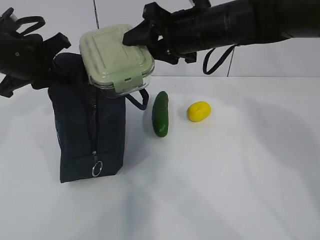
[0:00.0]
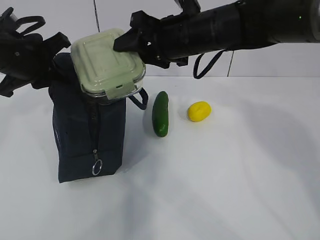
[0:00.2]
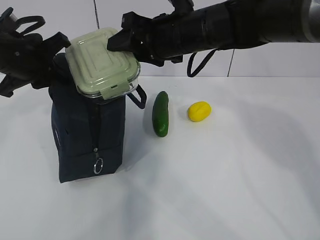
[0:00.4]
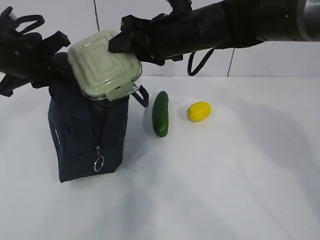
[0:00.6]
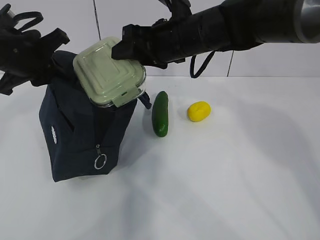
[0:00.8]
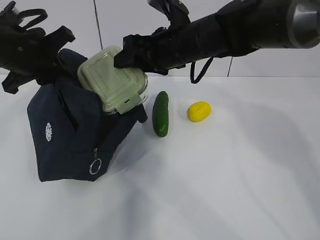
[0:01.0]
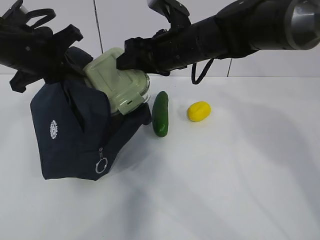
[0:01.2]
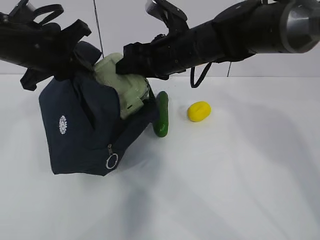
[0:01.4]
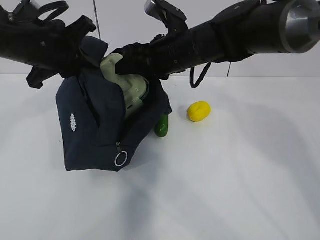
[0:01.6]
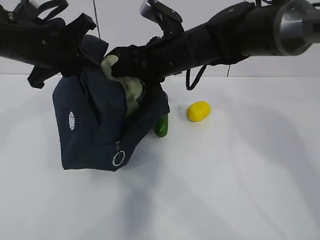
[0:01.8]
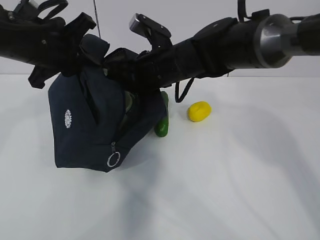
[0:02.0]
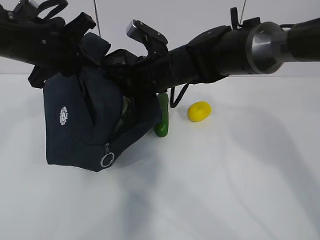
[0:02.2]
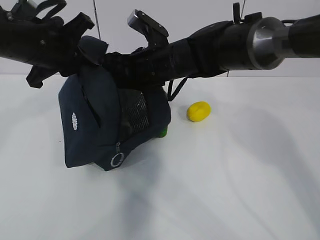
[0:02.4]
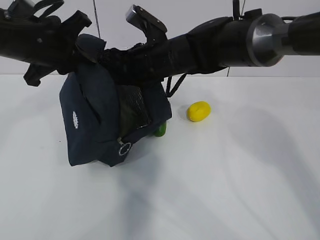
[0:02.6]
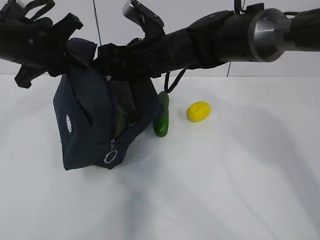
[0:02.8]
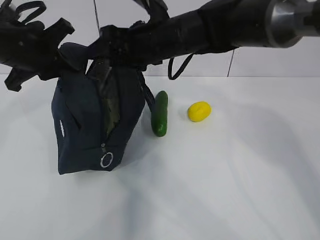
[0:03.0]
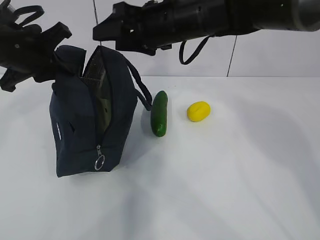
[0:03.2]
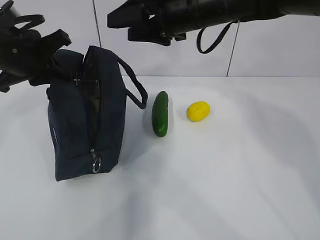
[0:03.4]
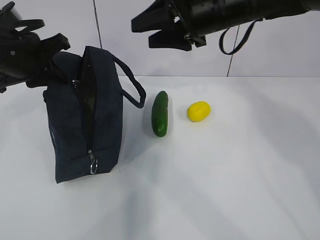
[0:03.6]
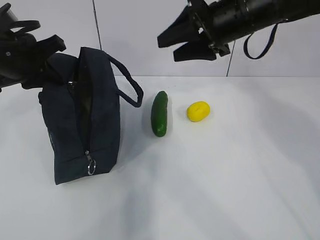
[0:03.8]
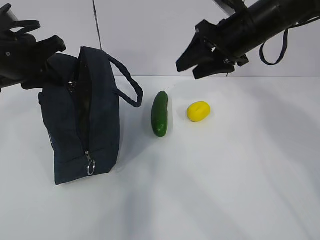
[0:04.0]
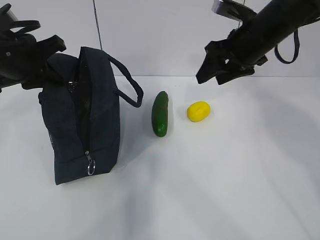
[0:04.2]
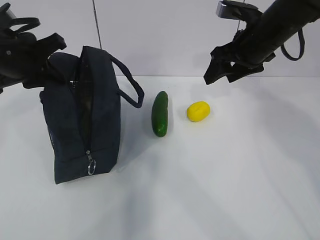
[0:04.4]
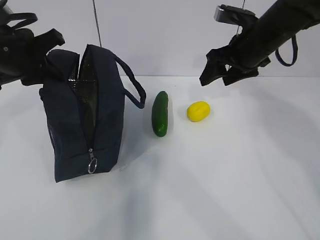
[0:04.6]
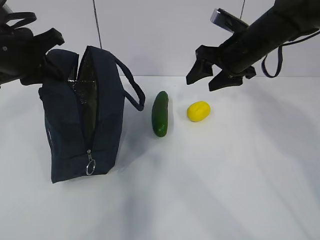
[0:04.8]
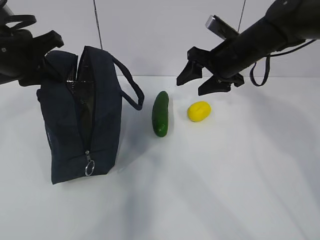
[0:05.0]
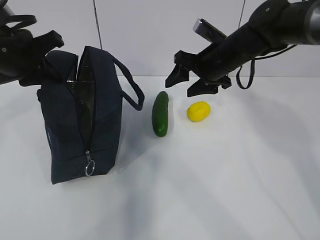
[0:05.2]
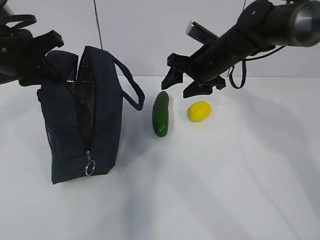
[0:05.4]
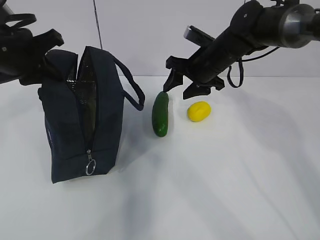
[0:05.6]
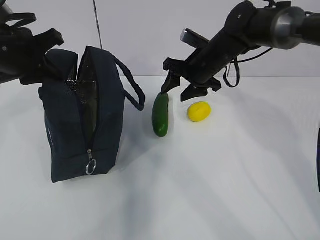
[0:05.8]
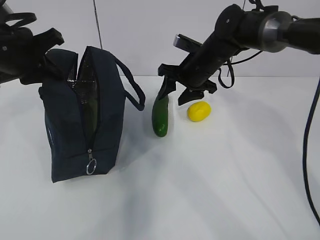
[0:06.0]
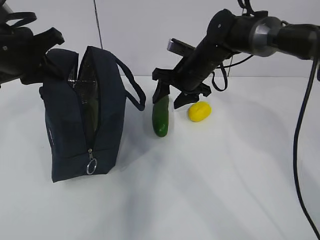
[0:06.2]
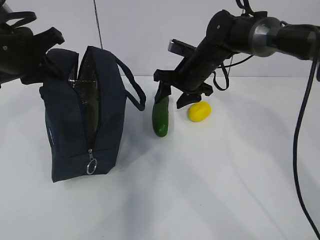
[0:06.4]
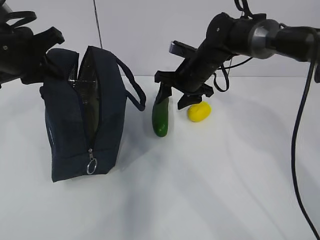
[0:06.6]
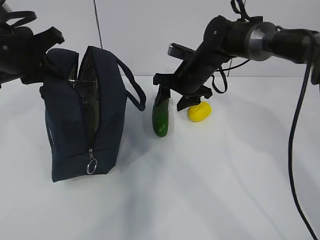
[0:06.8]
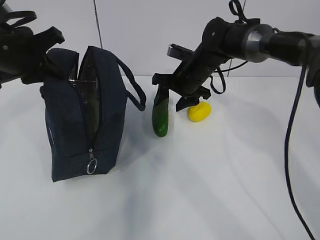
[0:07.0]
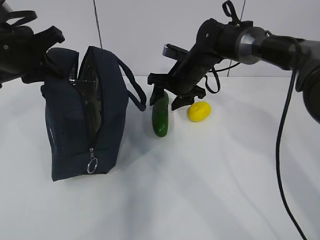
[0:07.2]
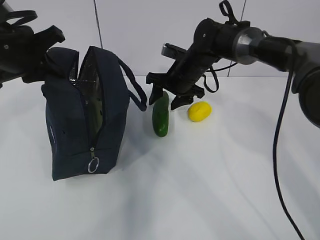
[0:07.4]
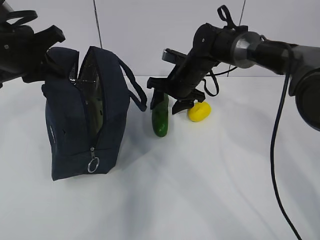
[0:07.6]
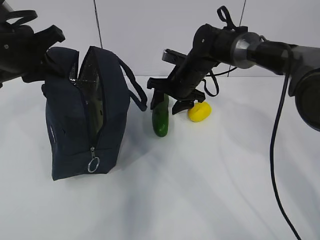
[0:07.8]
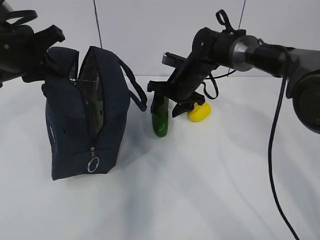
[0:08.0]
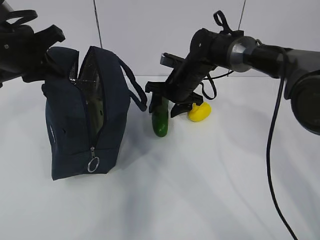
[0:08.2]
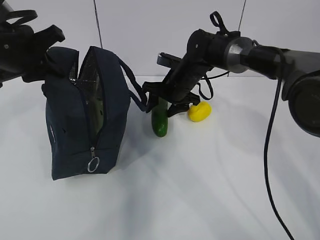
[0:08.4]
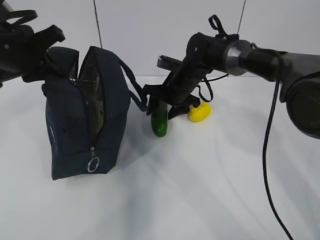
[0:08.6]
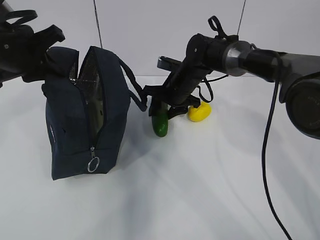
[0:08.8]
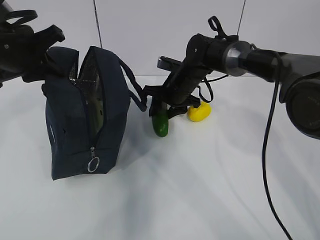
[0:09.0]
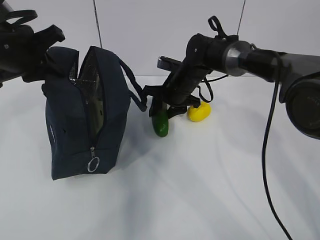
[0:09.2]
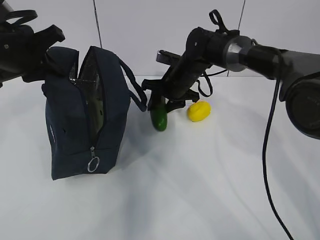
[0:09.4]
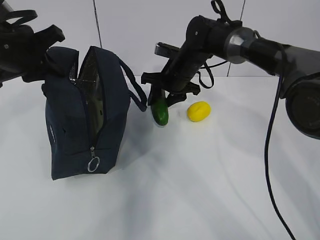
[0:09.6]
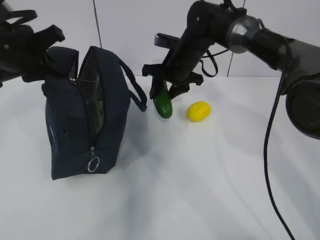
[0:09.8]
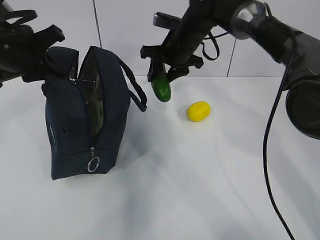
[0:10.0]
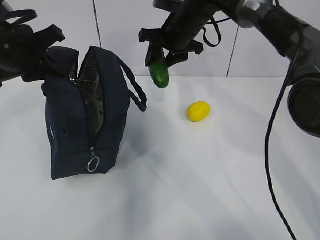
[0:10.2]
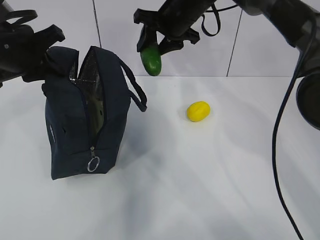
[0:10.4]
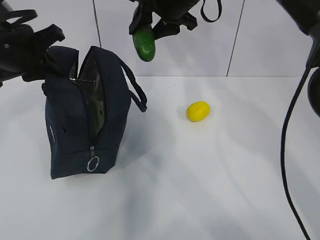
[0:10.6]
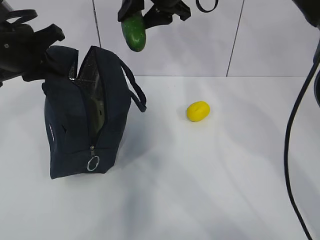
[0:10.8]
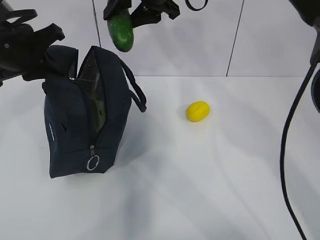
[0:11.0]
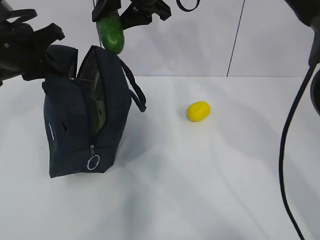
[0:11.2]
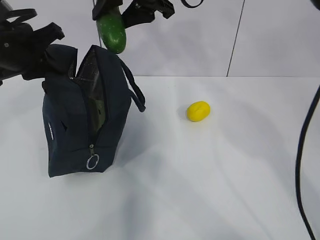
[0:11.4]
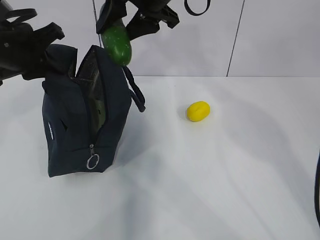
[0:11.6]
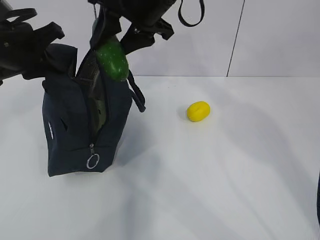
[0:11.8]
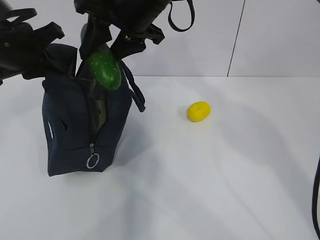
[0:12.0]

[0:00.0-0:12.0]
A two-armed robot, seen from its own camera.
Step, 0:00.0 to 0:02.8: Place the box into the package with the right gripper.
Step, 0:03.0 to 0:09.0: Grasp the cucumber with the right gripper.
0:00.0 to 0:01.6: The right gripper shifts by about 5 cm. Meanwhile the left gripper changes place by approximately 5 cm.
0:01.6 to 0:03.0: The grippers stay close to where they were, moving slightly.
0:03.0 to 0:04.4: The right gripper heads to the right, covering roughly 15 cm.
0:04.4 to 0:06.0: The right gripper is displaced downward, to the left and forward by some 15 cm.
0:06.0 to 0:07.6: The grippers stay close to where they were, moving slightly.
0:07.6 to 0:09.0: The grippers stay close to where they were, moving slightly.
0:09.0 to 0:10.4: The right gripper goes roughly 15 cm upward.
0:10.4 to 0:12.0: The right gripper travels backward, to the left and upward by some 15 cm.

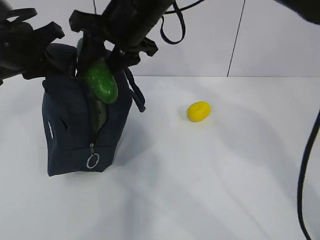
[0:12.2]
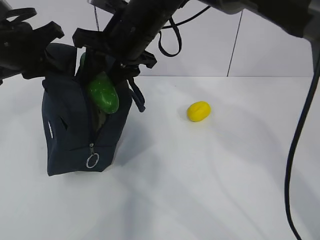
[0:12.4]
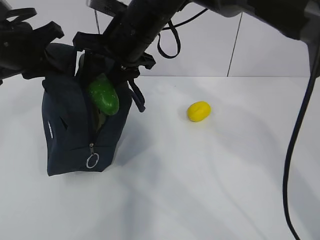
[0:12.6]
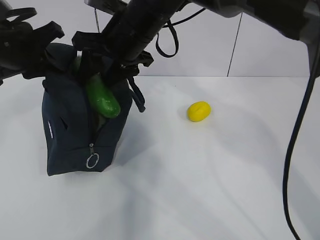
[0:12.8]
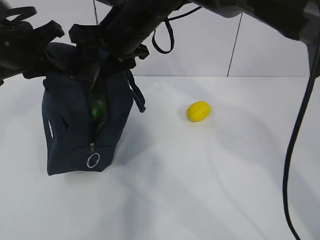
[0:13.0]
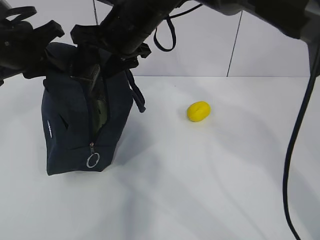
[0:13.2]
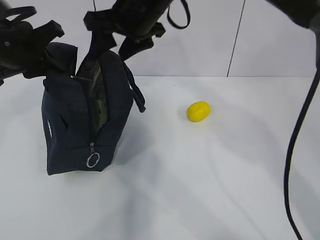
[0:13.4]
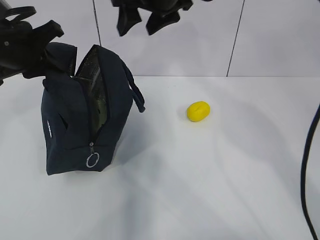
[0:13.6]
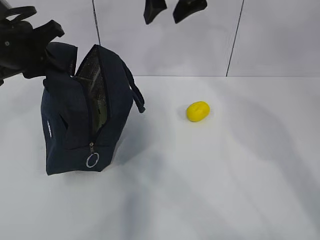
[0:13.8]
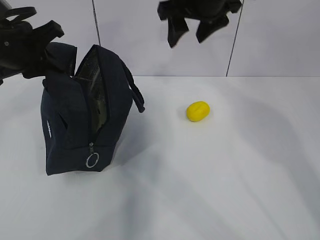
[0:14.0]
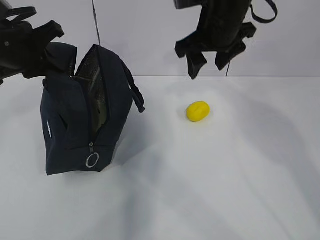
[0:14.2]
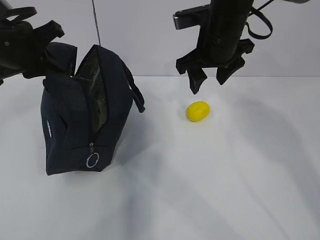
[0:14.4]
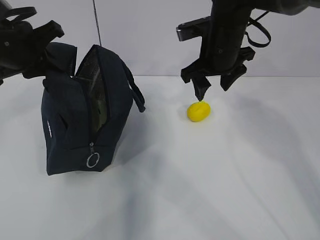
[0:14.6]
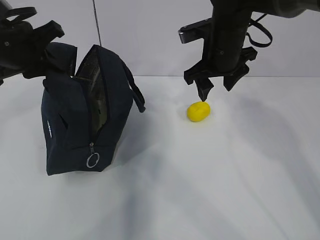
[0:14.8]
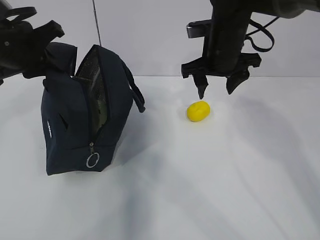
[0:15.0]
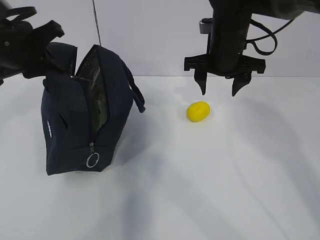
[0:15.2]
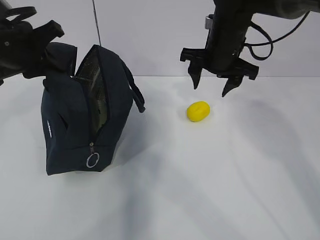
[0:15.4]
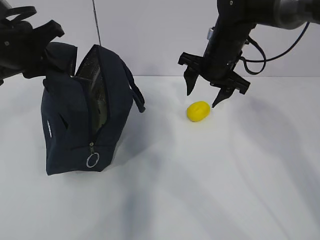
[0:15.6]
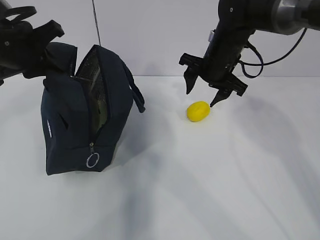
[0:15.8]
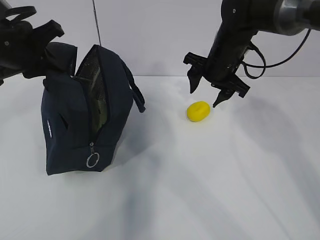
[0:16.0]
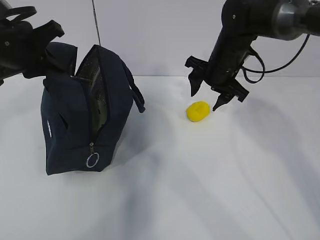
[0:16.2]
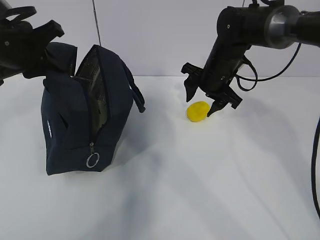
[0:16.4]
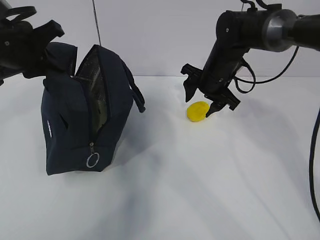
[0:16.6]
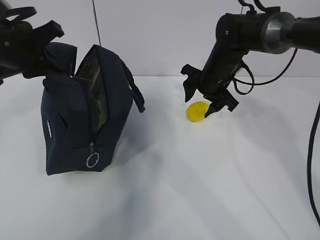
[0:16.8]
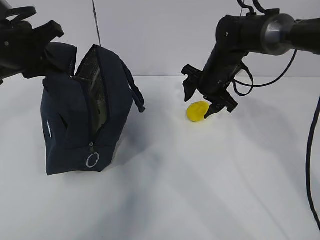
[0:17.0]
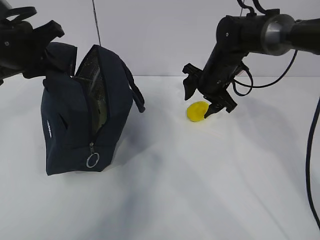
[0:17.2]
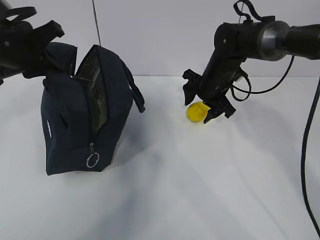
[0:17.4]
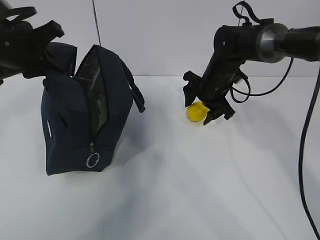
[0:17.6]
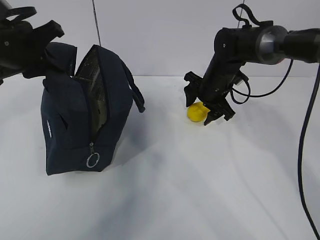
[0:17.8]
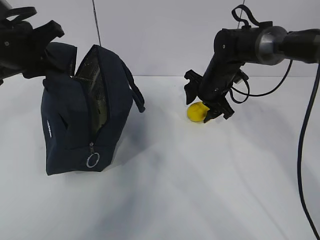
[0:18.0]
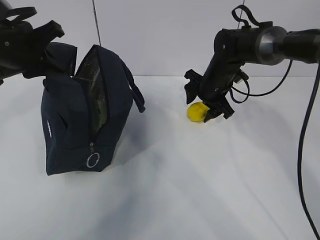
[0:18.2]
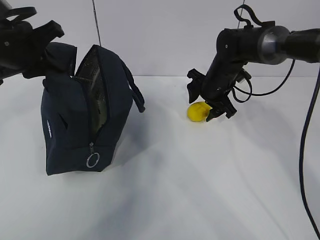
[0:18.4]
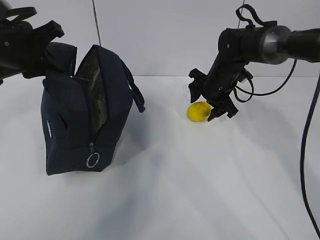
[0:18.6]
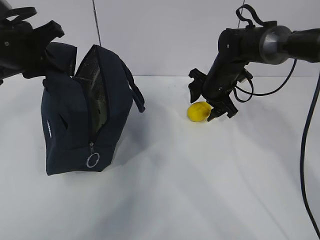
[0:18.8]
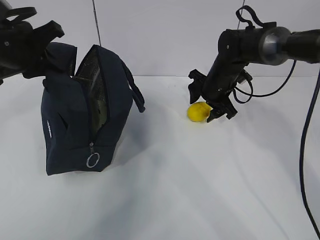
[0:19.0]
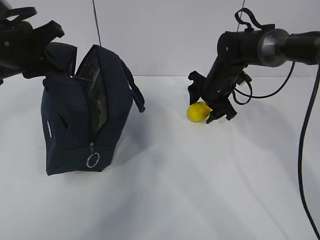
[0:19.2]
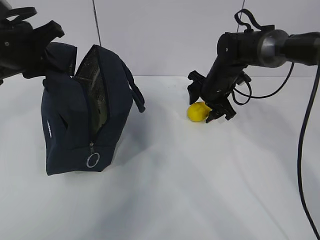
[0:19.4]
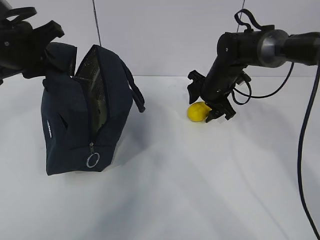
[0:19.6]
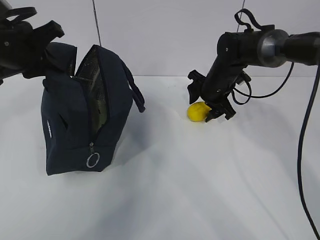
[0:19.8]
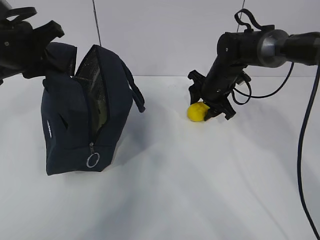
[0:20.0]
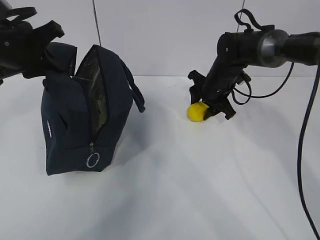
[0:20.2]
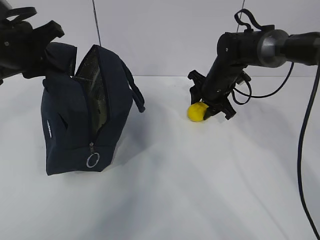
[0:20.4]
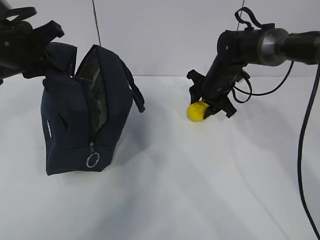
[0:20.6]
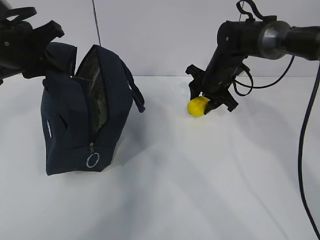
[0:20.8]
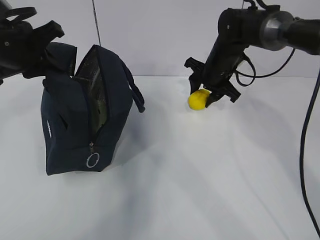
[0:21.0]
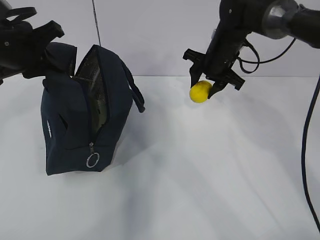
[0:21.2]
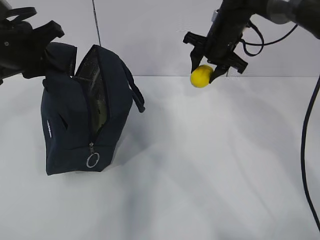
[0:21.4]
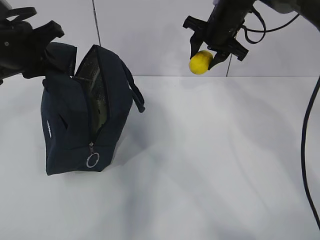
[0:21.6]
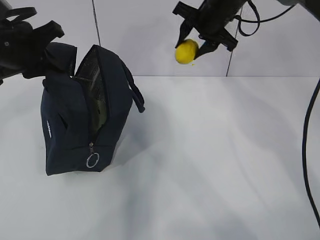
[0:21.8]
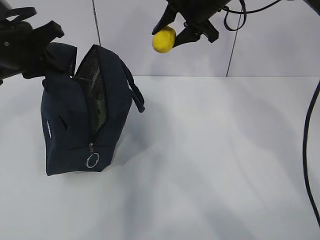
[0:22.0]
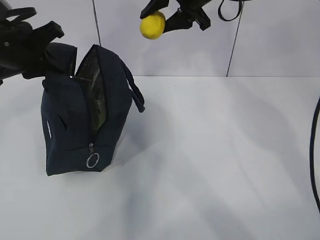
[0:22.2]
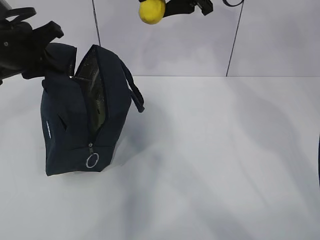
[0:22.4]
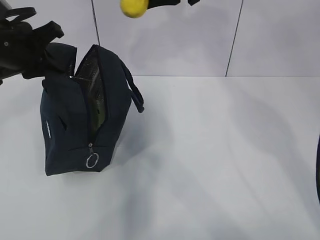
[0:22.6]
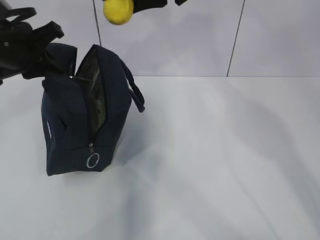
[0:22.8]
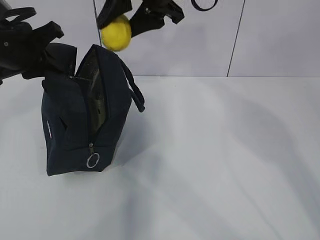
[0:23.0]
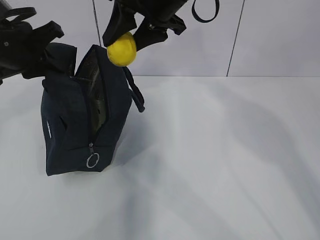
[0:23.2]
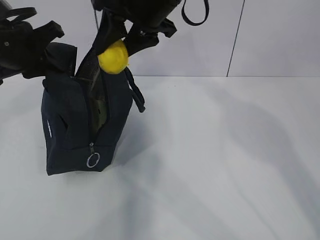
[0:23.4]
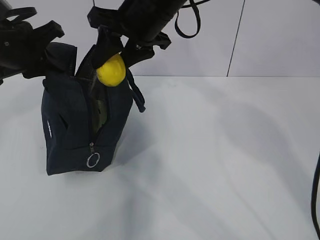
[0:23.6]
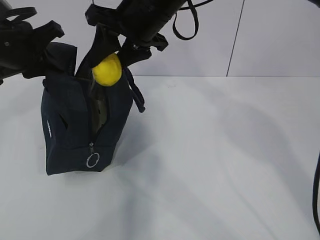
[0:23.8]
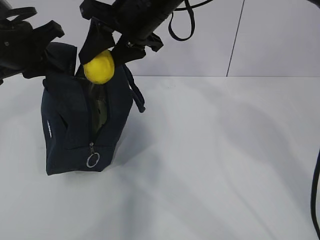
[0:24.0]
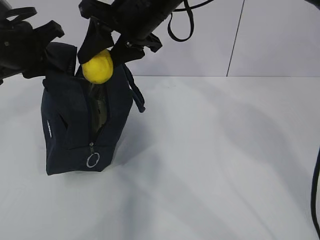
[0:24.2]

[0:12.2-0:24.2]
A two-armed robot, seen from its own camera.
Step, 0:13.4 to 0:20.6: Grasp the lemon with the right gripper.
0:12.2 to 0:13.8: The right gripper moves to the right, about 10 cm.
0:13.8 to 0:15.2: The right gripper goes roughly 15 cm downward and to the right.
0:15.2 to 0:16.6: The right gripper shifts some 5 cm downward.
0:16.6 to 0:18.2: There are only small adjustments of the grippers.
0:18.2 to 0:19.8: Both grippers stay about where they are.
0:19.8 to 0:21.2: The right gripper travels upward by about 5 cm.
0:21.2 to 0:22.6: The right gripper is displaced upward by roughly 20 cm.
0:22.6 to 0:24.2: The right gripper is displaced to the left, backward and downward by roughly 10 cm.
